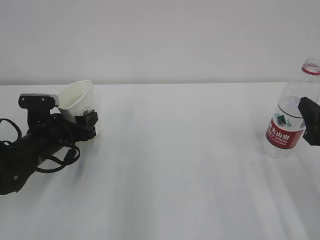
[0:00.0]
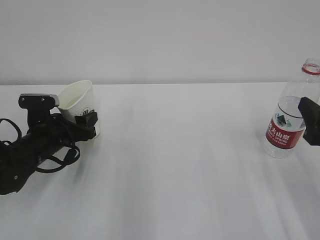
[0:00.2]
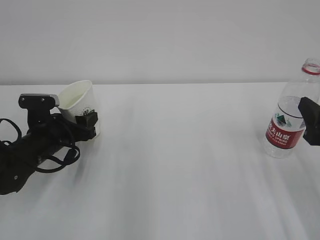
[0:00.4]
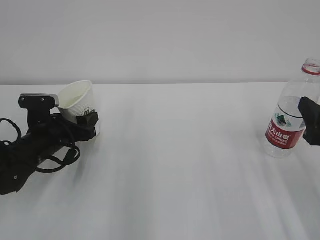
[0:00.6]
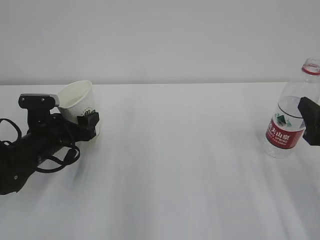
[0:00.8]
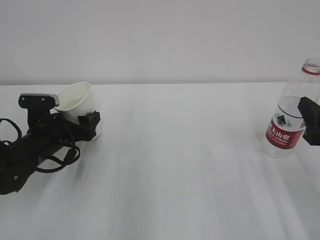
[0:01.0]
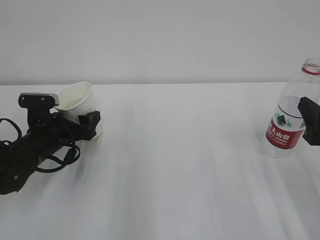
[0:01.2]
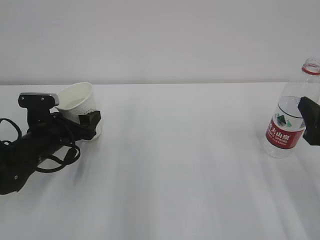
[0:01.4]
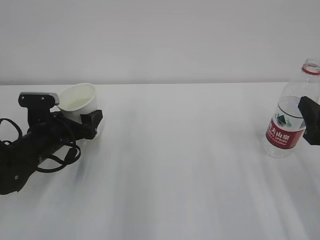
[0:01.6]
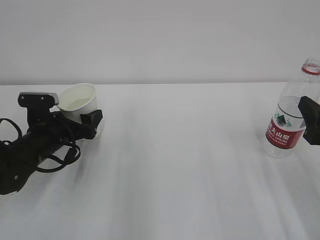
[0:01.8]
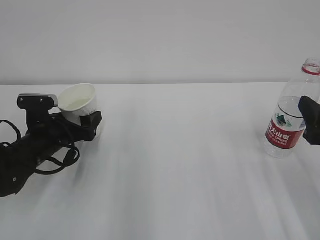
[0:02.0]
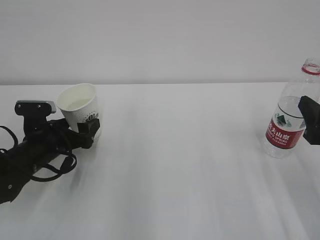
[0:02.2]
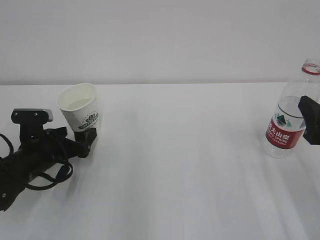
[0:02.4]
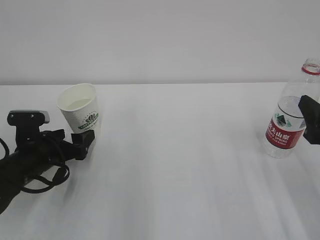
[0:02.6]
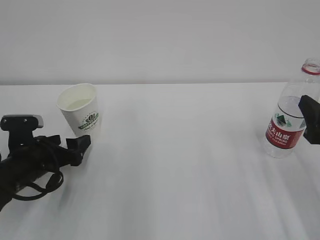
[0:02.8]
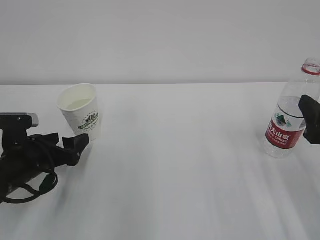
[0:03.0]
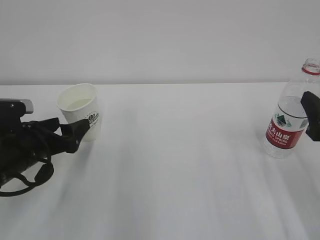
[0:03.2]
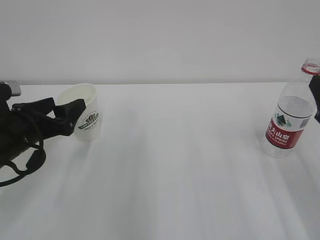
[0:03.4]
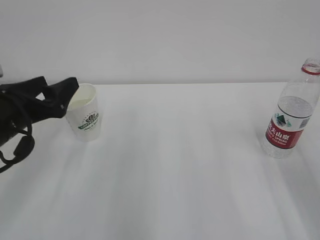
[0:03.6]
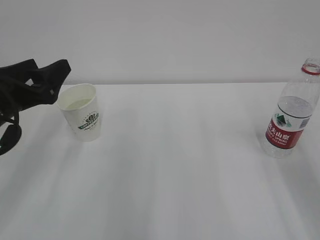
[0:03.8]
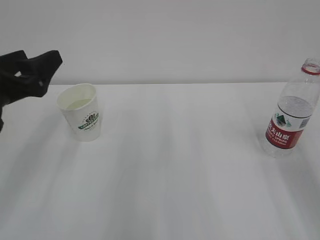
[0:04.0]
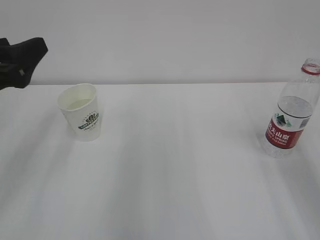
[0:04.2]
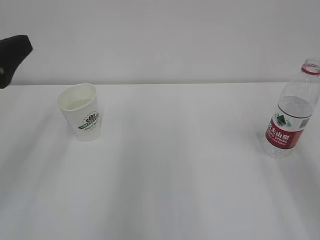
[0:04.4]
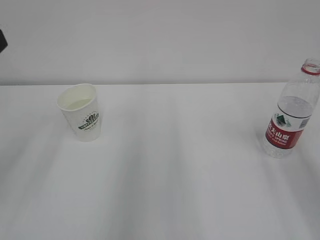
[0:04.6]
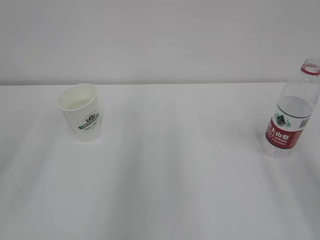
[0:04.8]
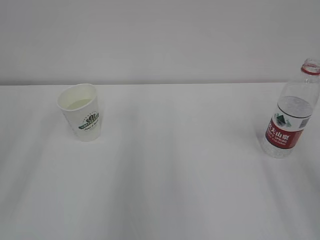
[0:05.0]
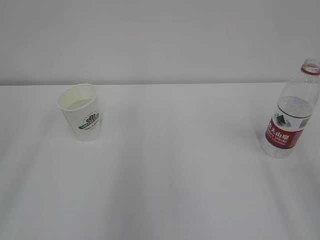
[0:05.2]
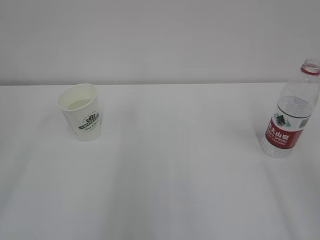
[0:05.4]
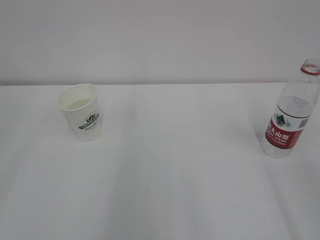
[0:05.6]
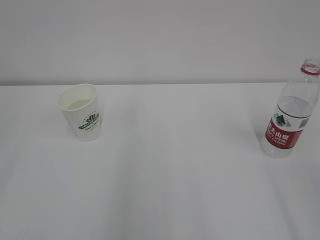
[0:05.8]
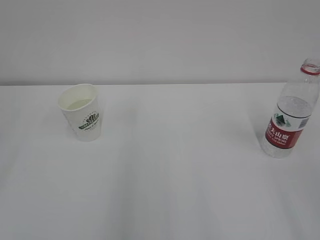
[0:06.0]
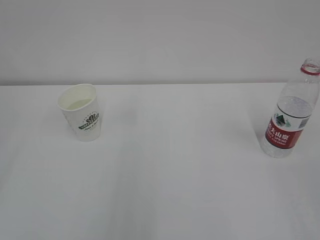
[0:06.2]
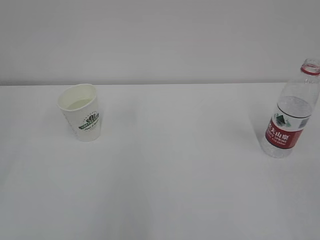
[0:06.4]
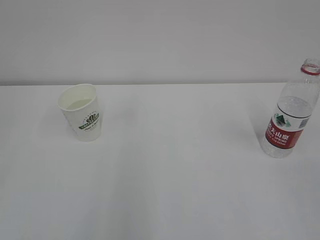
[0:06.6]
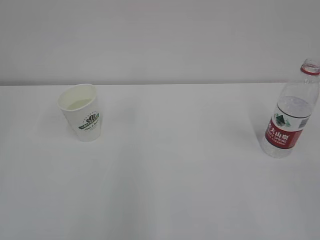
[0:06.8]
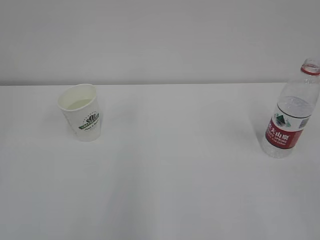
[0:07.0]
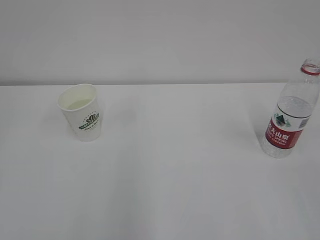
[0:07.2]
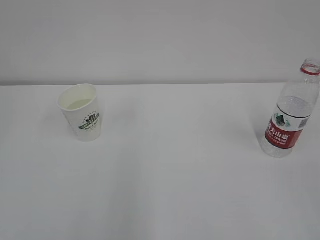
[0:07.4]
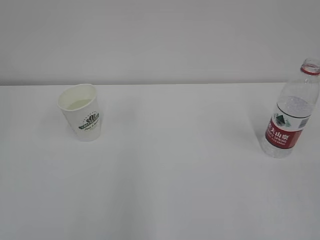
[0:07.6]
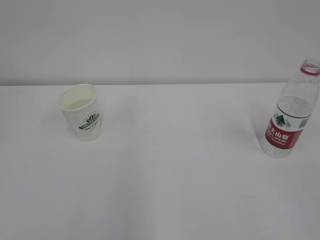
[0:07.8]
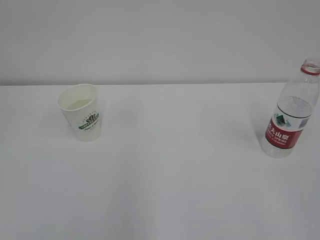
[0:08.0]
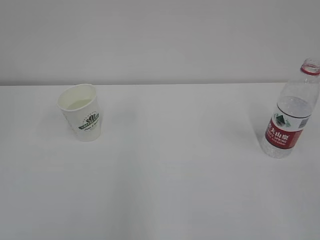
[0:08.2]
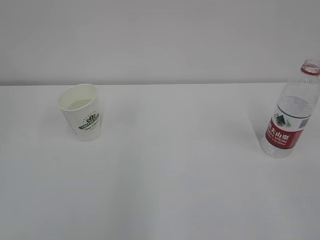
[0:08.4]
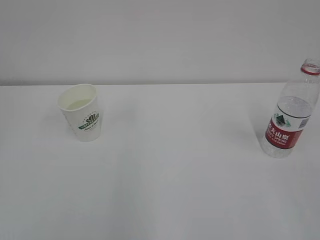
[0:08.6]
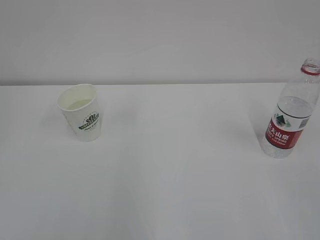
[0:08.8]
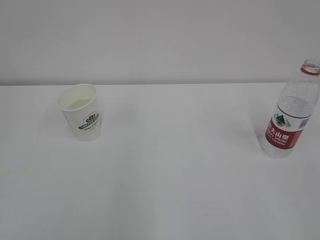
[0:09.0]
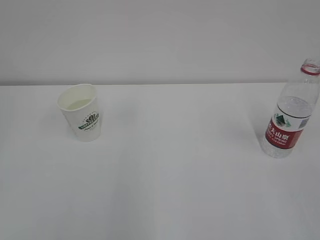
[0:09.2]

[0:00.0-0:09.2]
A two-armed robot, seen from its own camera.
0:00.0 to 0:01.6: The left gripper opens its fingers.
0:01.6 to 0:03.0: The left gripper is displaced backward by roughly 5 cm.
0:03.0 to 0:04.6: The right gripper shifts about 20 cm upward; the left gripper goes approximately 25 cm upward and backward.
